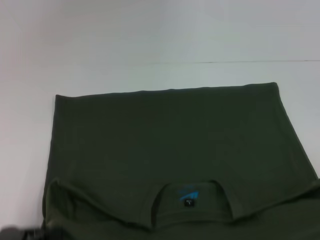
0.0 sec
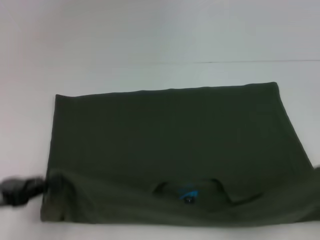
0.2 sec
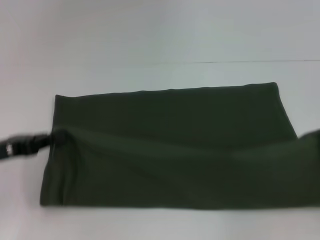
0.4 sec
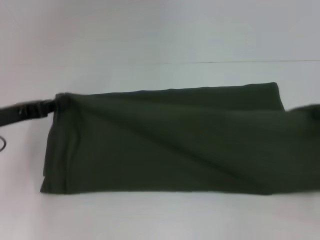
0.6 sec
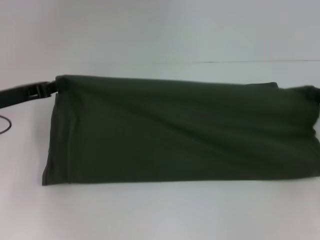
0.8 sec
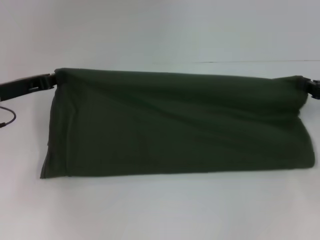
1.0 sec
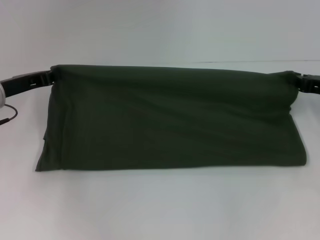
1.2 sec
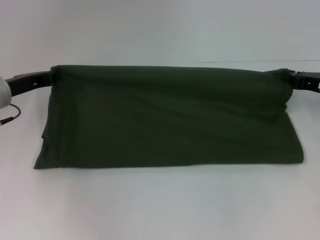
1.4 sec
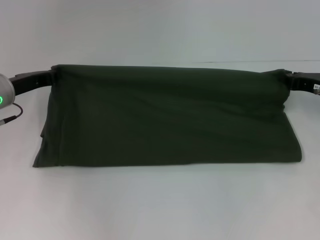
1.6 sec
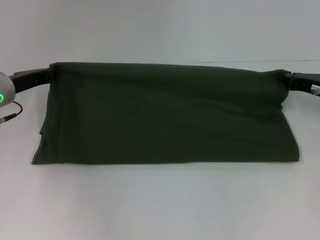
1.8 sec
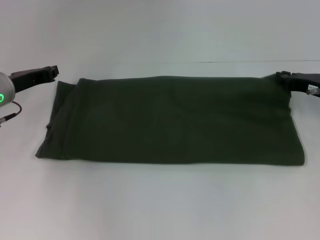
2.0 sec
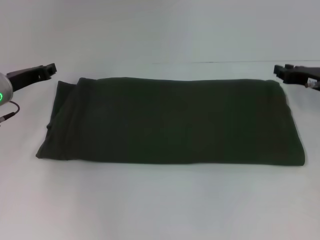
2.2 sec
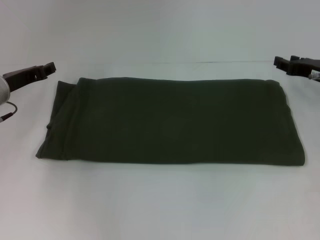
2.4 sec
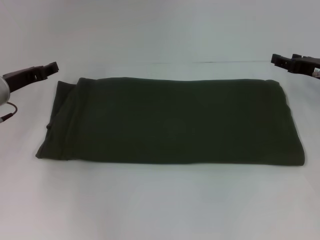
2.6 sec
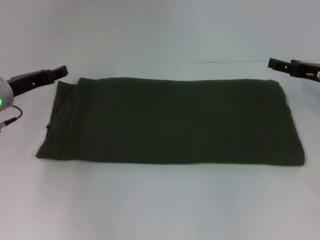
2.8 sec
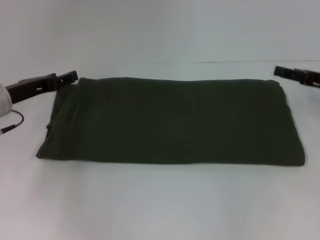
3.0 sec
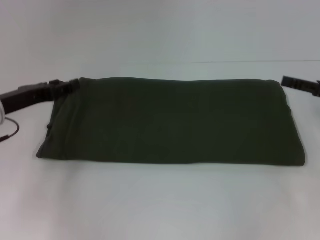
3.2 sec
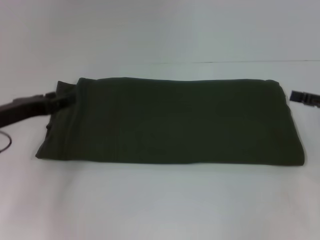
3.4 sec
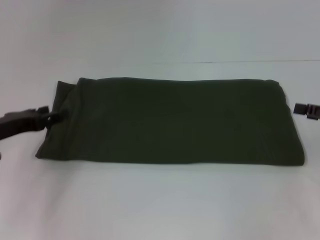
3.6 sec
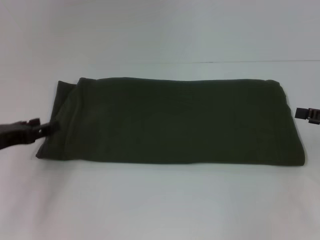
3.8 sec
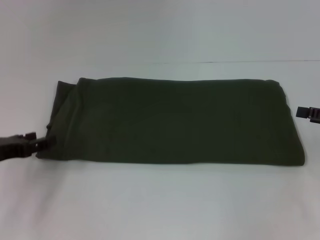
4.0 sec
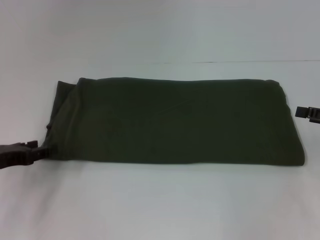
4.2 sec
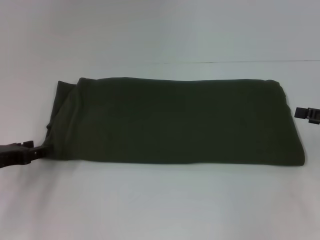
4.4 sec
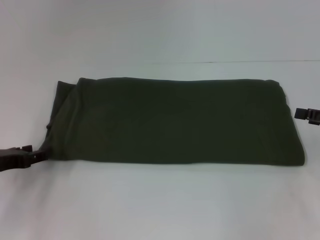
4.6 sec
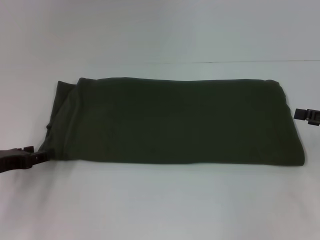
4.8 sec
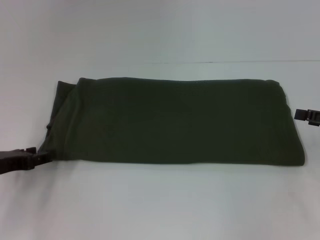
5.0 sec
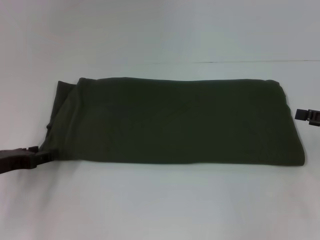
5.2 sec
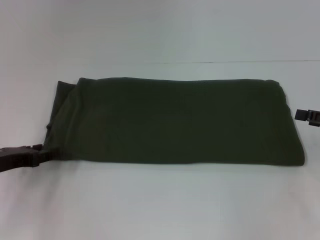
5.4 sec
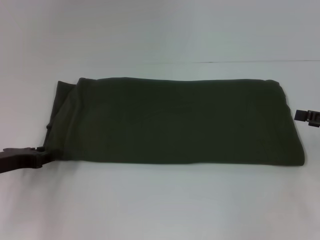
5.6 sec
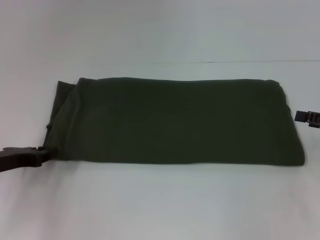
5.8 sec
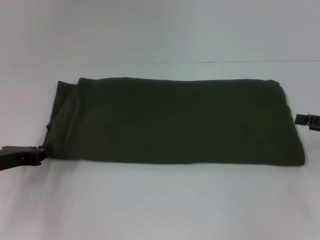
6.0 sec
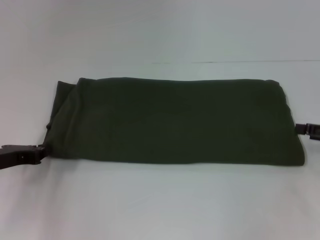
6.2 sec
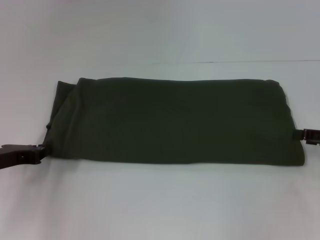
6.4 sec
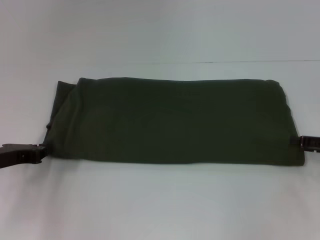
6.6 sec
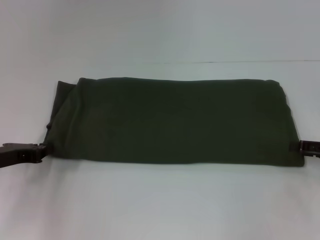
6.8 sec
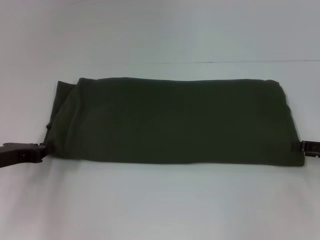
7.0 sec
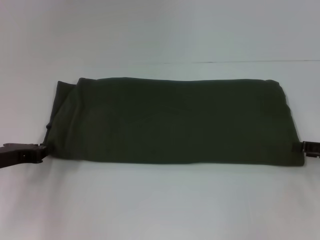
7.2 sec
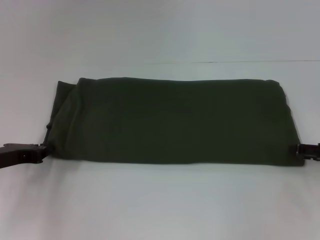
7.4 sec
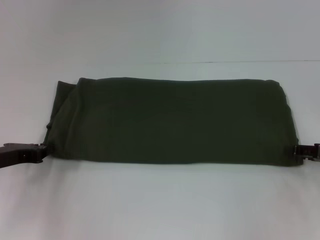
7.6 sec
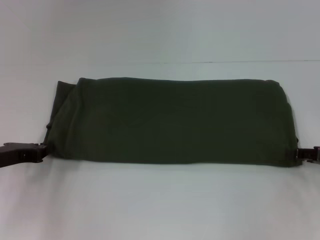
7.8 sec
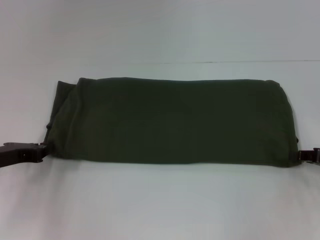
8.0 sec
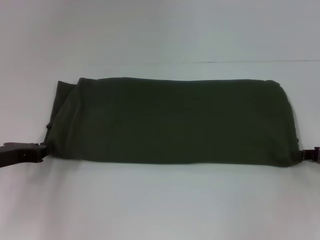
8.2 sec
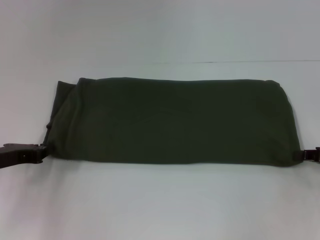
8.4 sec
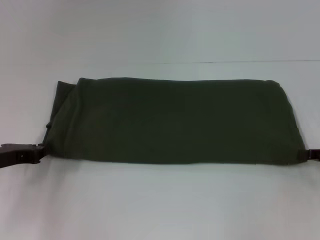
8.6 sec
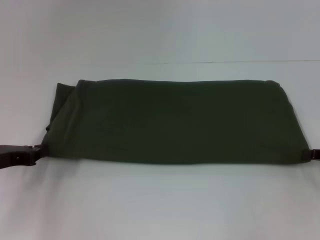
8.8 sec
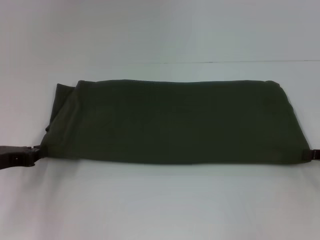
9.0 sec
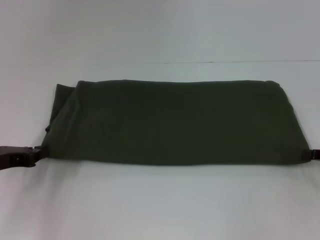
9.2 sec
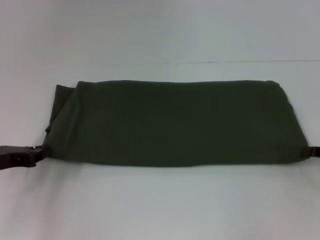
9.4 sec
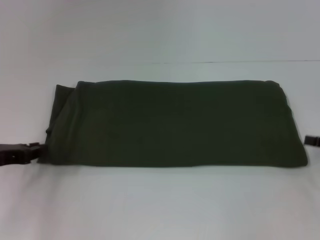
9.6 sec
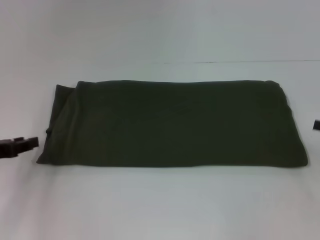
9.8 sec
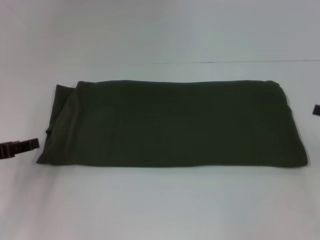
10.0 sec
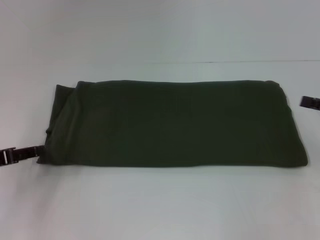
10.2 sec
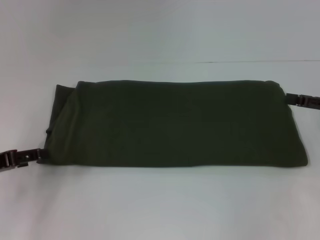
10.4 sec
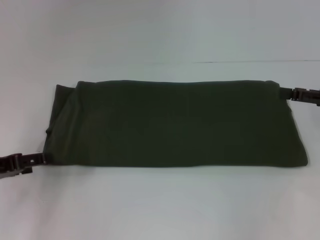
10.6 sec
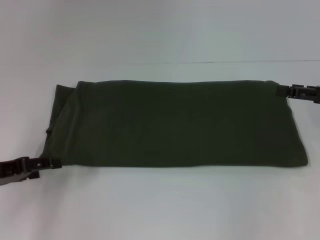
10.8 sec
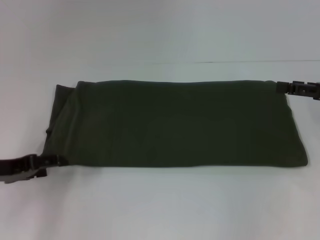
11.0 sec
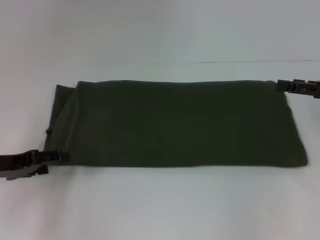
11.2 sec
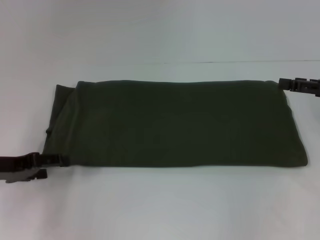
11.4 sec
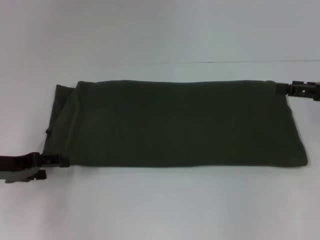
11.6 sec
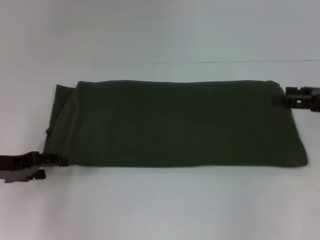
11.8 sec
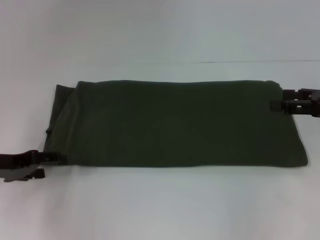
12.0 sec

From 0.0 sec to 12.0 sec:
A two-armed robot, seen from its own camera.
Step, from 0.0 sec to 2.0 sec: Fold the clothes with your right hand.
From 0.0 sec to 1.6 sec: The right gripper heads forward and to the left, covering some 25 cm, while the left gripper shifts approximately 25 cm forward.
From 1.6 sec to 3.0 sec: The right gripper opens its fingers. The left gripper opens.
From 3.0 sec to 4.4 sec: The left gripper travels backward by about 10 cm, while the right gripper heads backward, covering approximately 5 cm.
From 4.4 sec to 6.0 sec: The left gripper closes.
From 6.0 sec to 7.6 sec: The grippers move only a little.
From 7.6 sec to 9.0 sec: The right gripper closes.
From 9.0 sec to 10.4 sec: The right gripper goes about 5 cm upward, and opens, while the left gripper opens.
From 10.4 sec to 12.0 sec: The grippers move only a little.

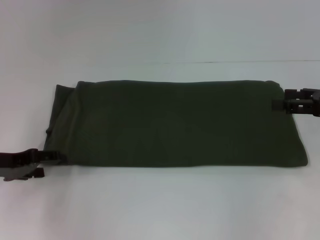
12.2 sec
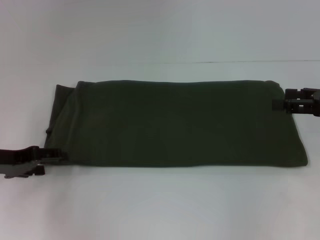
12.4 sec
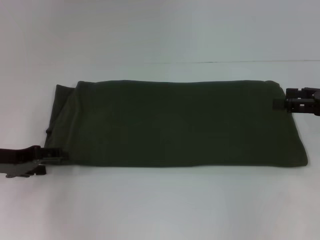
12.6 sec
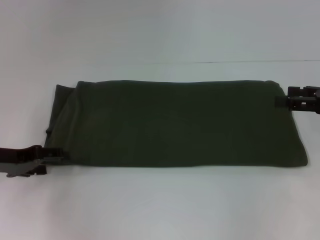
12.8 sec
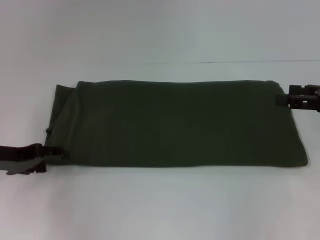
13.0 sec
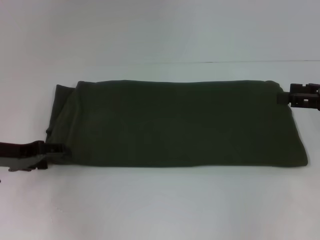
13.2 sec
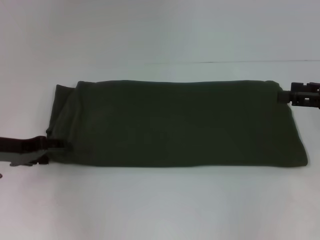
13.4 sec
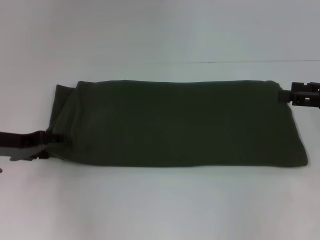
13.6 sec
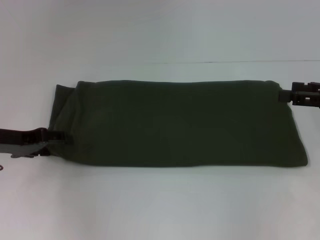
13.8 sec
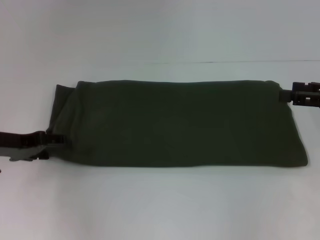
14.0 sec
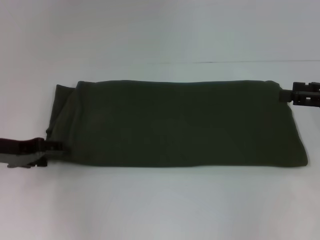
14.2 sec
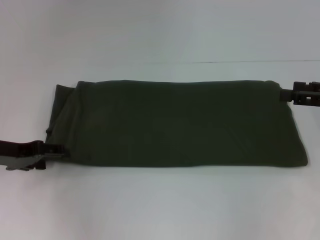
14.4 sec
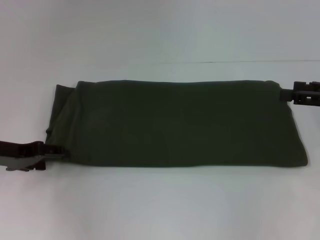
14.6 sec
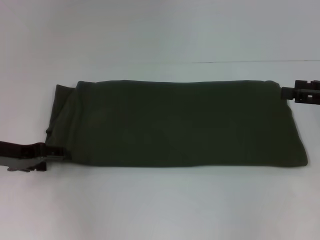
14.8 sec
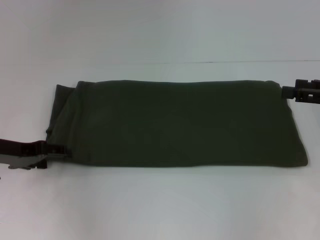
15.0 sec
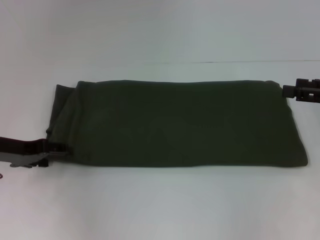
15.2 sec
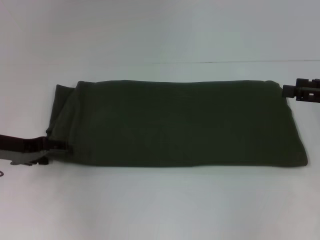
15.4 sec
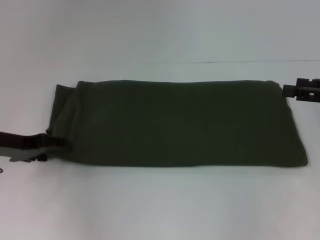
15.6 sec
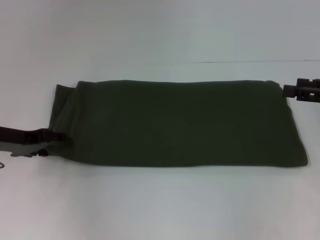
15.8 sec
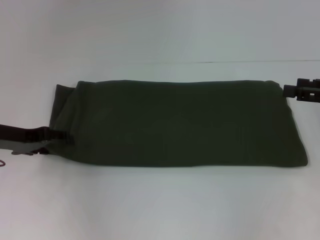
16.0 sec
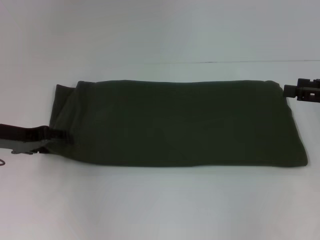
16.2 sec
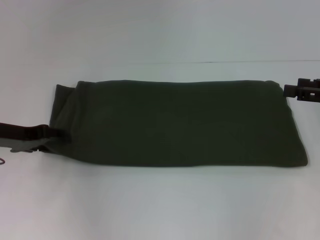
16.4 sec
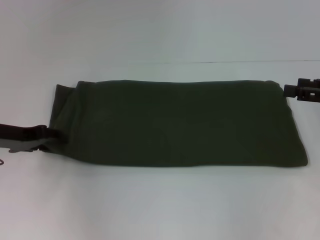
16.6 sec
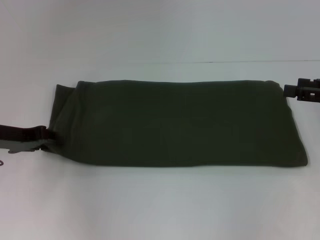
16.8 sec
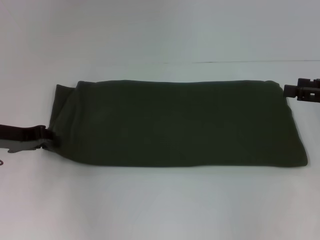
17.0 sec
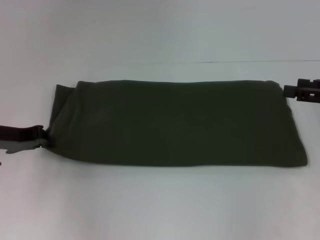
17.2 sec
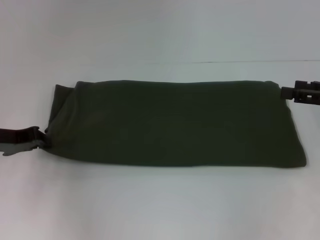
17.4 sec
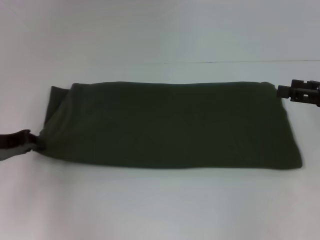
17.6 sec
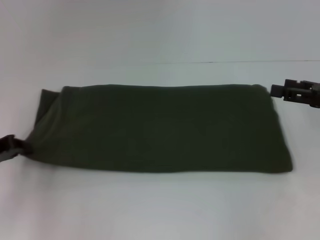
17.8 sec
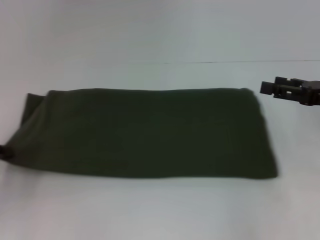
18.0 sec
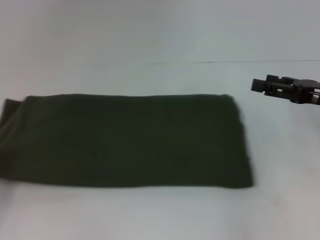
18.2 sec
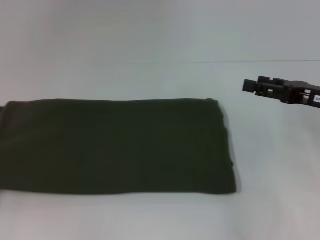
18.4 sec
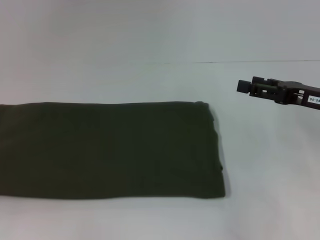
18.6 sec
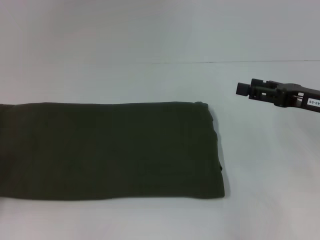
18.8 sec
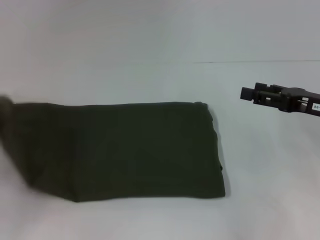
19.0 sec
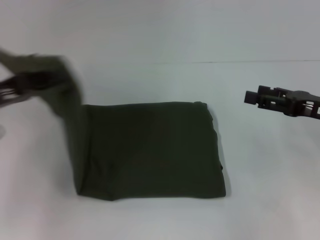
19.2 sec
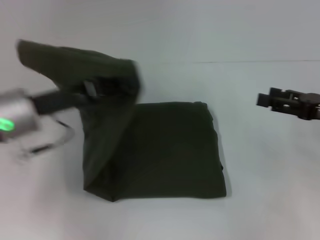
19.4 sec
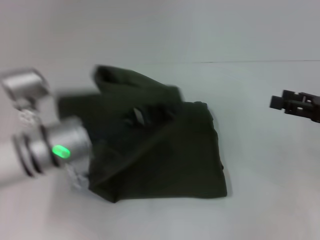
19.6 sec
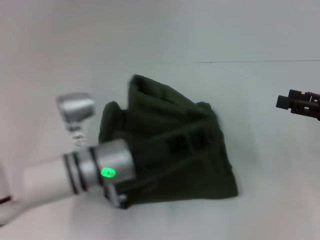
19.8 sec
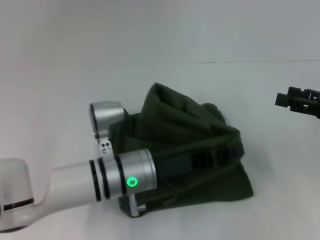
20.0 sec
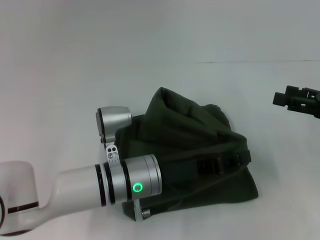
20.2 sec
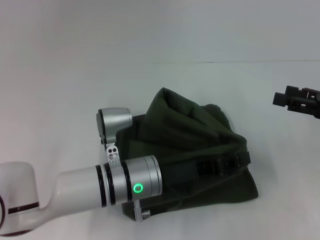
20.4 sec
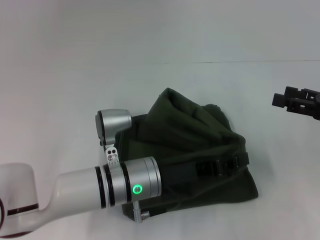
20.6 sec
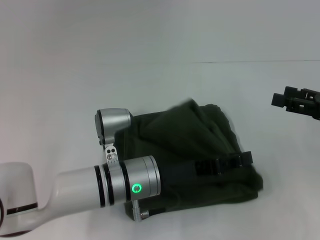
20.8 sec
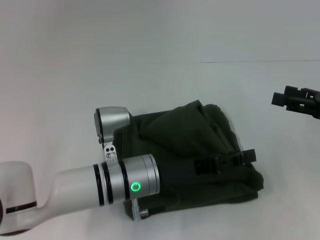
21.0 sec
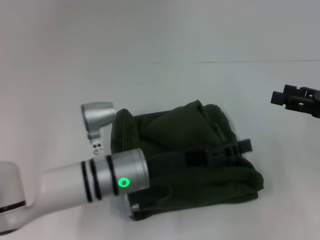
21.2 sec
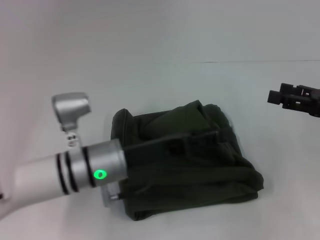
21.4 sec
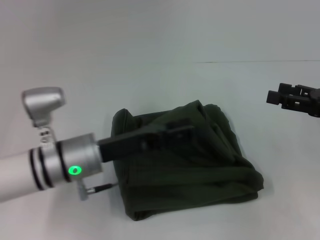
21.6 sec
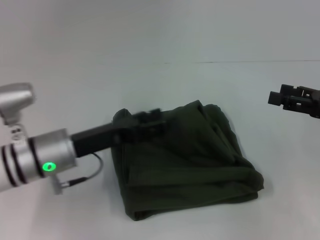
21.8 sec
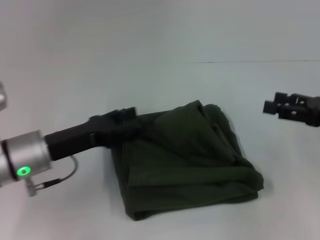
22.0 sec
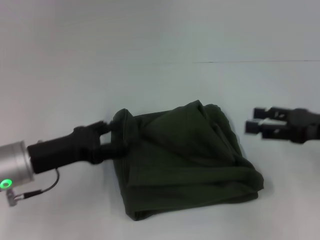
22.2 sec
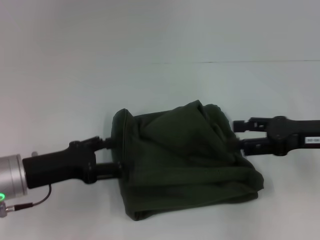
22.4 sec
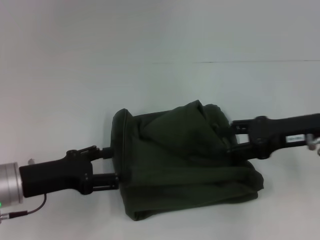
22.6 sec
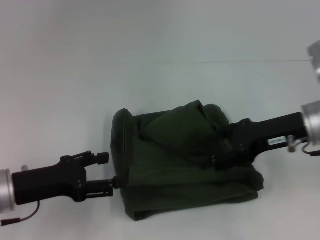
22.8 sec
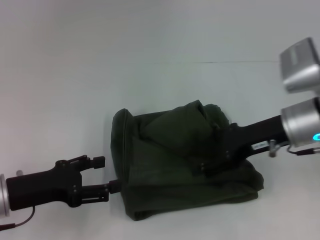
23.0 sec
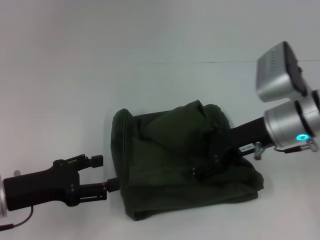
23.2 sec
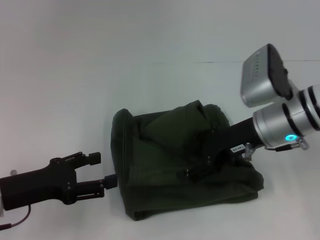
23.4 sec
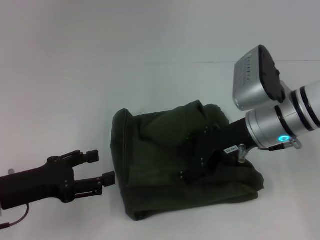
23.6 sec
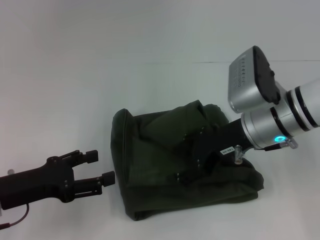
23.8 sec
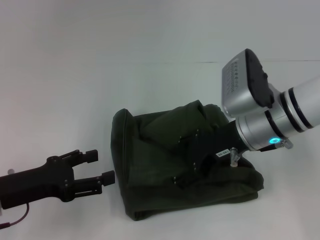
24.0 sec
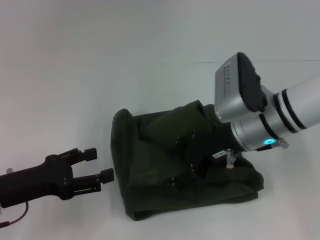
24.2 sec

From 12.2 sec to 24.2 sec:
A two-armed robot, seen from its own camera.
Step, from 12.2 sec to 21.0 sec: Fold the clothes with your left hand.
From 12.2 sec to 16.6 sec: The grippers move only a little.
From 16.6 sec to 18.2 sec: The left gripper is displaced backward and to the left by about 15 cm, and closes its fingers.
From 18.2 sec to 19.8 sec: The left gripper is displaced to the right by approximately 30 cm.
From 19.8 sec to 21.2 sec: The left gripper opens.
From 21.2 sec to 22.6 sec: The left gripper shifts about 15 cm to the left, and opens up; the right gripper heads to the left, covering about 10 cm.
From 22.6 sec to 24.2 sec: The right gripper goes some 10 cm to the left.
